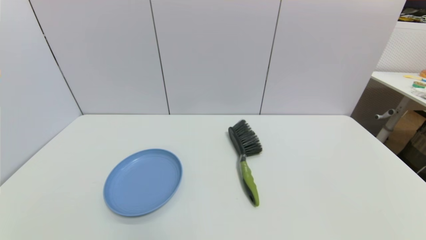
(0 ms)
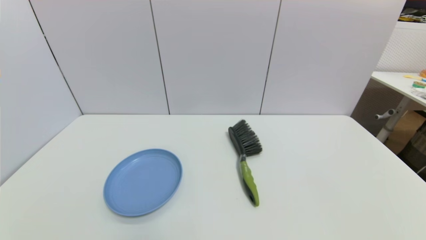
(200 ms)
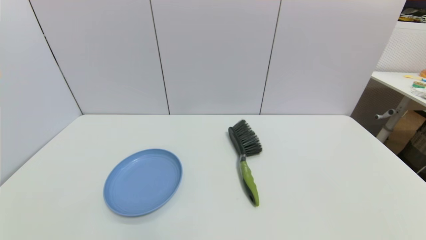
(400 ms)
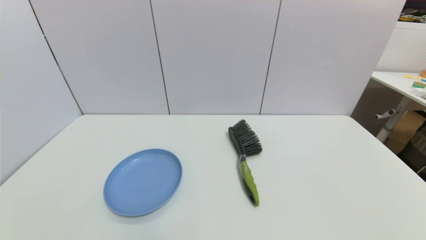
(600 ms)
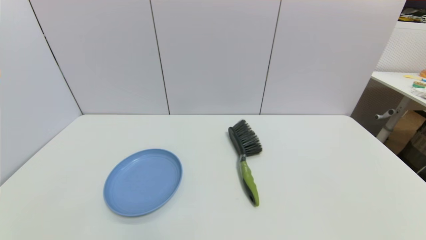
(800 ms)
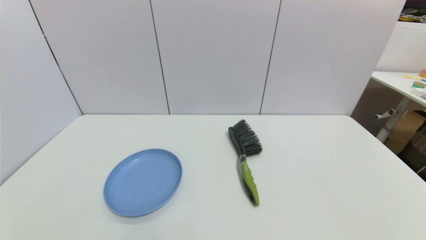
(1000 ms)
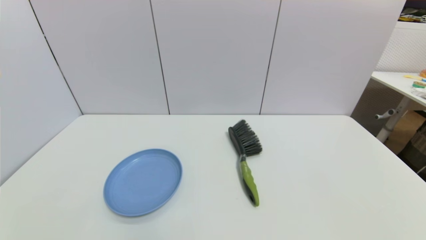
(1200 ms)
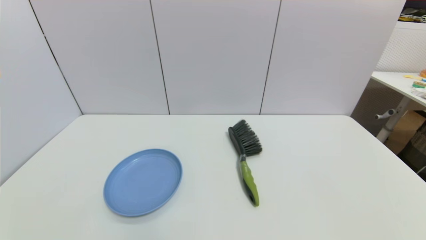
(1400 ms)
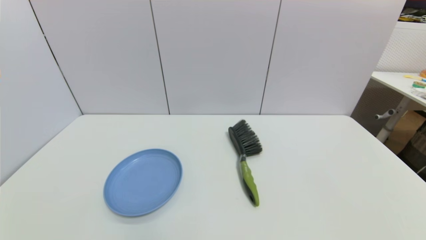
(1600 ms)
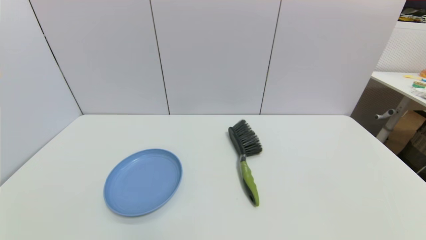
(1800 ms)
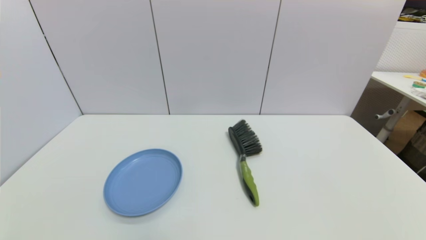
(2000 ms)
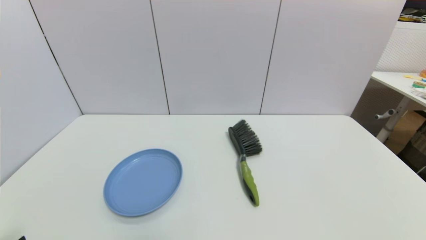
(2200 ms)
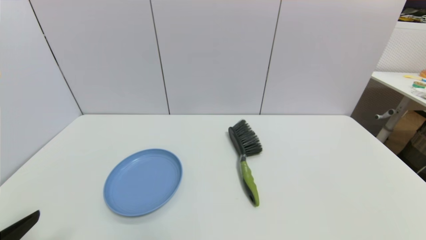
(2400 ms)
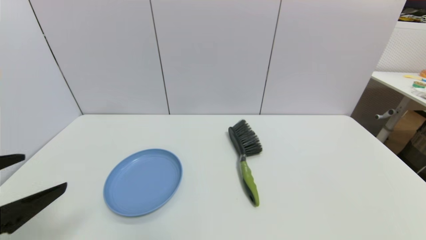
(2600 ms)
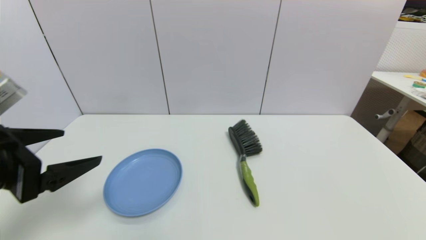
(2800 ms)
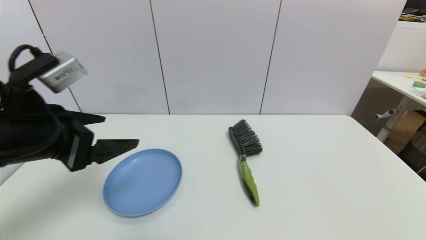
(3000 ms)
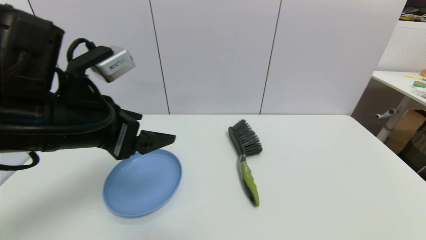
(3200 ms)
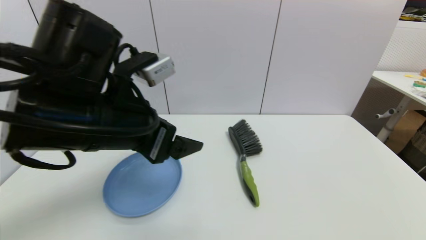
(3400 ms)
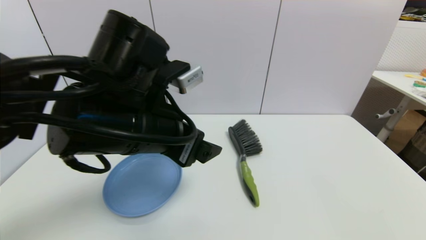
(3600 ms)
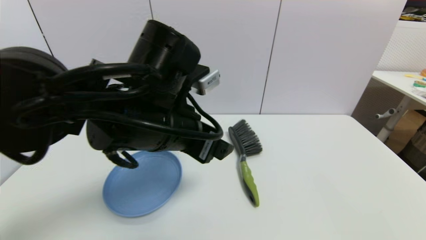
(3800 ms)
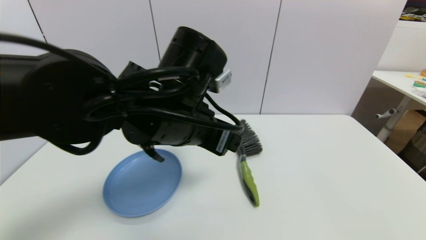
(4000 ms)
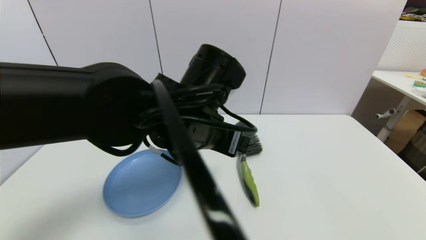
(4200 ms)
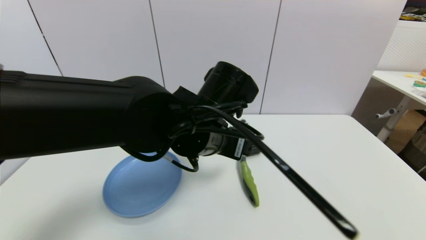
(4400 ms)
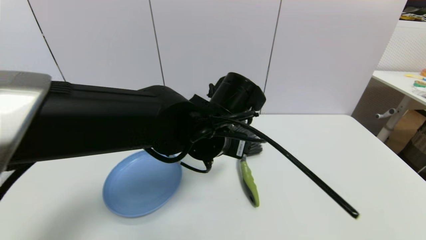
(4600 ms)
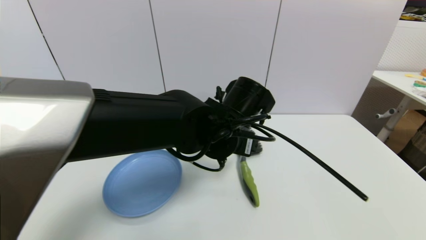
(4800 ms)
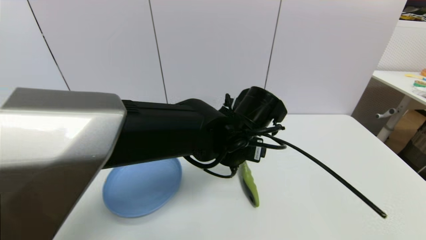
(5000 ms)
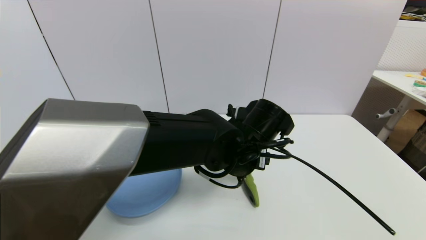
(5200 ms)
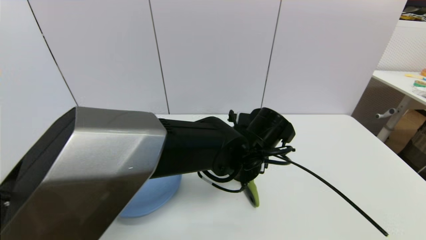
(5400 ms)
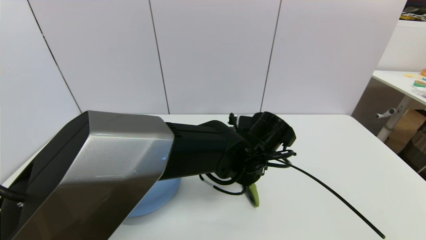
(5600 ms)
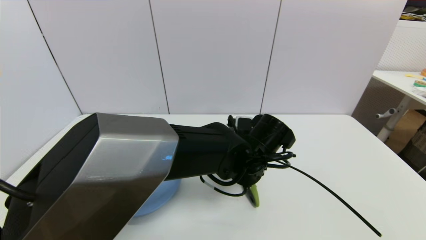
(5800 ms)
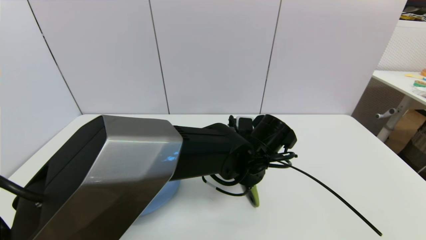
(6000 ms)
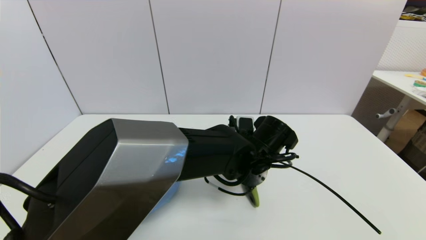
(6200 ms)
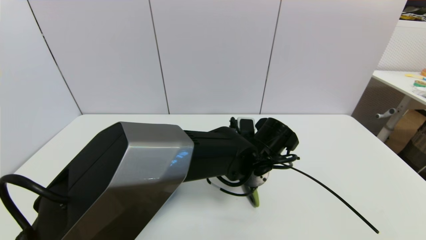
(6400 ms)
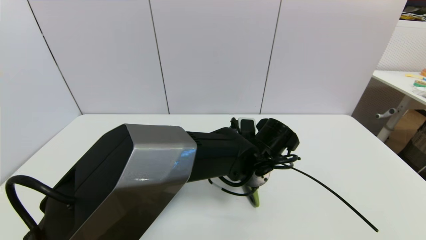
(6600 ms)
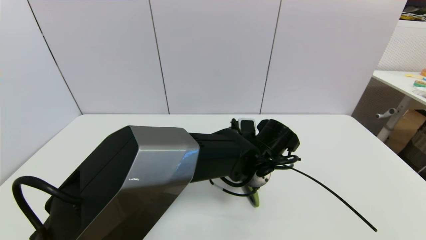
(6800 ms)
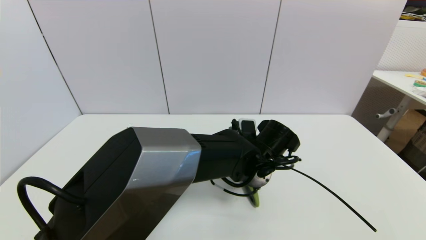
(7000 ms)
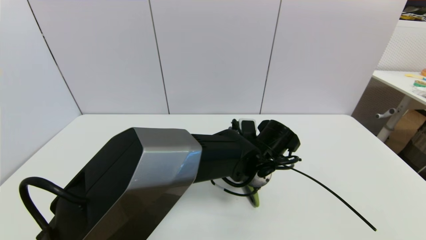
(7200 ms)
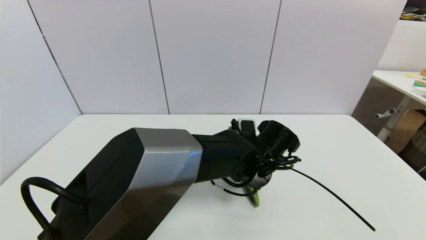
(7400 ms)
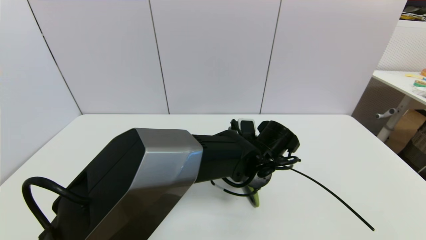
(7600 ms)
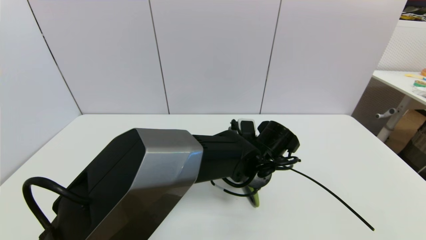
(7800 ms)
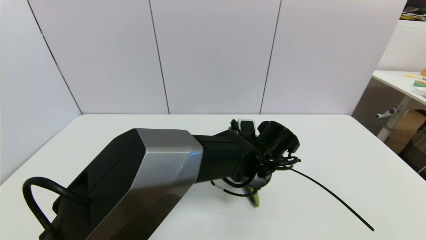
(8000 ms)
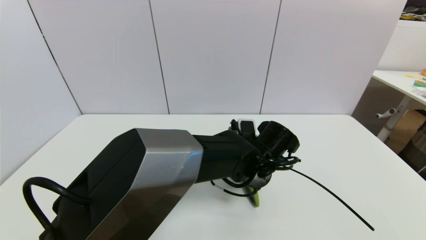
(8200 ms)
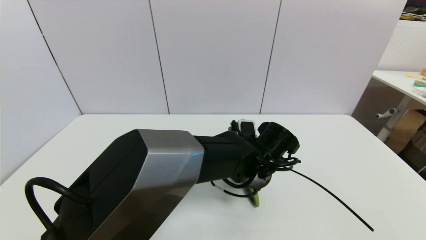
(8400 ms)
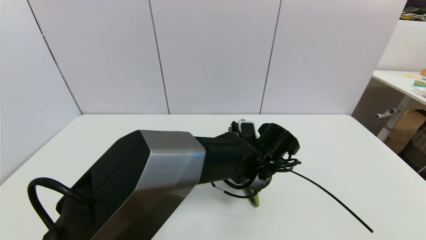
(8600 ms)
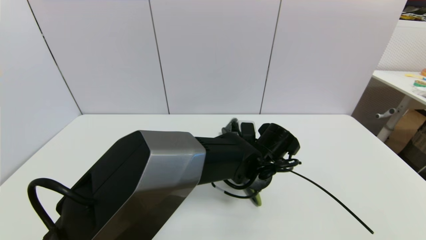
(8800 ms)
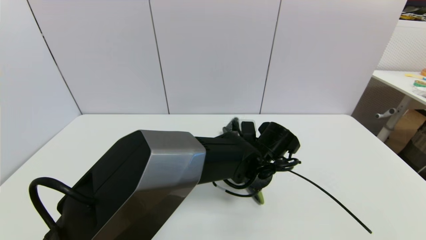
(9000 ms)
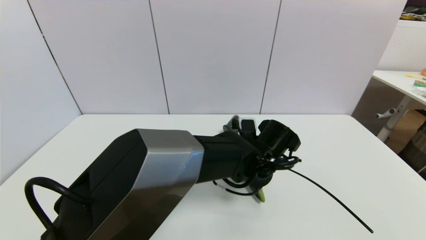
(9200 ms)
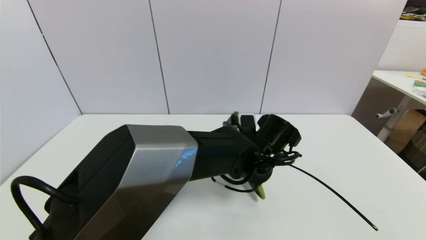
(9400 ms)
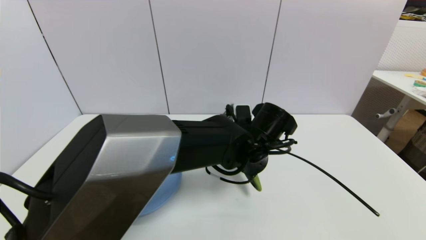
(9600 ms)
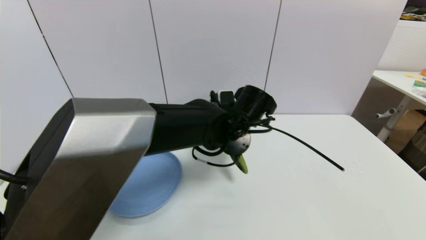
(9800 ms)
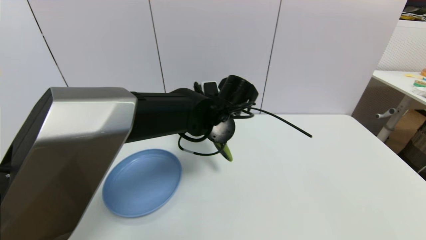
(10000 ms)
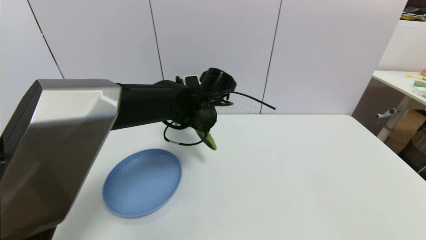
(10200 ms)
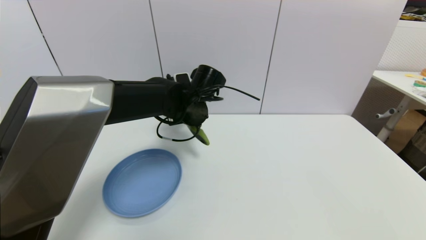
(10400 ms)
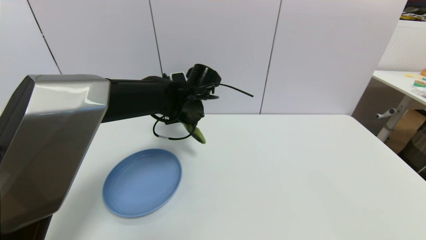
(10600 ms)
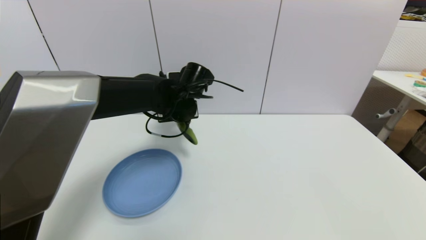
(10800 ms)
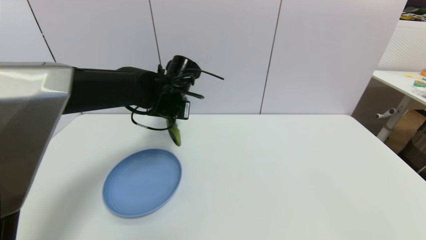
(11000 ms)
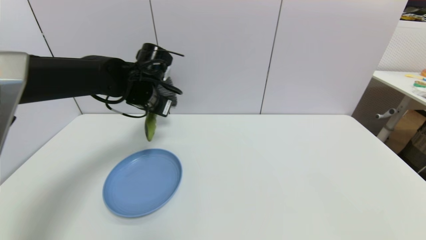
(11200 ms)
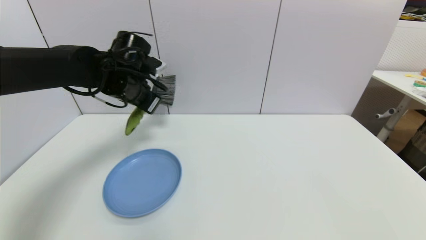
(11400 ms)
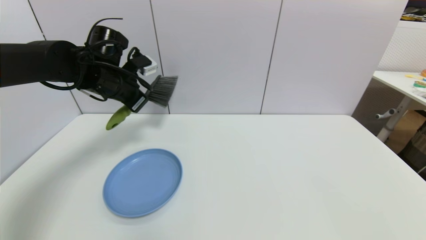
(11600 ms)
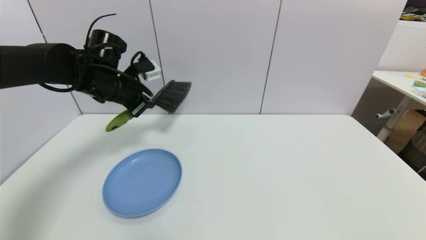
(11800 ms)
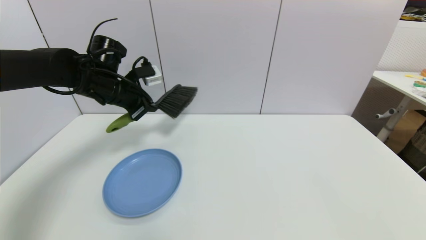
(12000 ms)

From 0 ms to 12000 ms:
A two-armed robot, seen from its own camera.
Task of the whole recording: put the brush in the designated position.
Step, from 2400 ms to 9400 ms: Grasp the brush with left gripper.
From 0 ms to 1600 ms: Neither gripper changes place.
From 1600 ms to 3000 ms: The left gripper travels upward, forward and to the right by some 30 cm.
From 3000 ms to 4400 ms: The left gripper travels to the right by roughly 20 cm.
From 4400 ms to 6000 ms: The left gripper travels downward and to the right by approximately 10 cm.
From 6000 ms to 7600 ms: There are only small adjustments of the grippers.
From 7600 ms to 9000 ms: The left gripper closes its fingers.
From 9000 ms to 10400 ms: The left gripper shifts some 15 cm to the left, upward and forward.
From 10400 ms to 12000 ms: The left gripper travels to the left by approximately 20 cm.

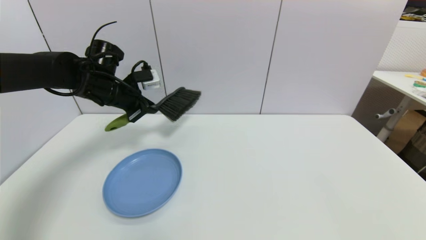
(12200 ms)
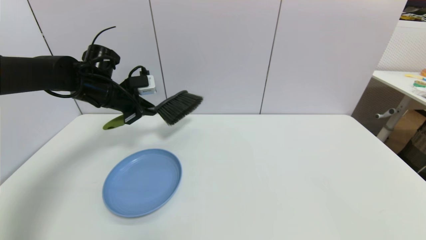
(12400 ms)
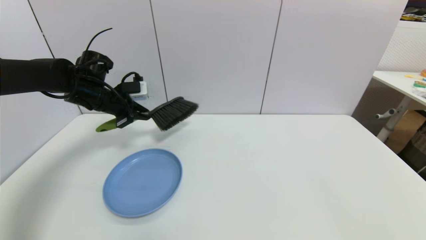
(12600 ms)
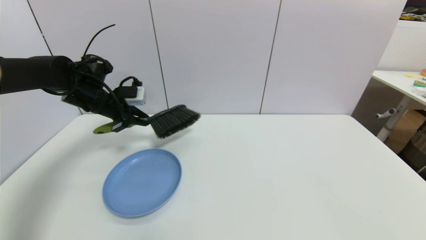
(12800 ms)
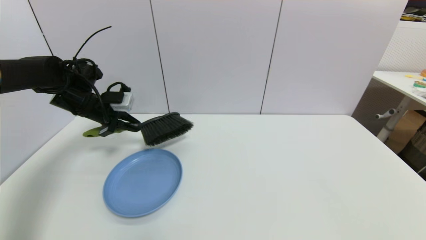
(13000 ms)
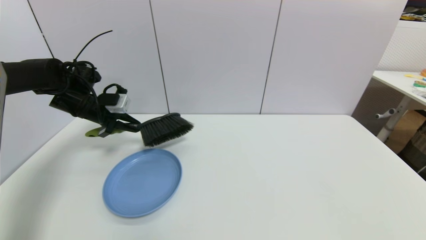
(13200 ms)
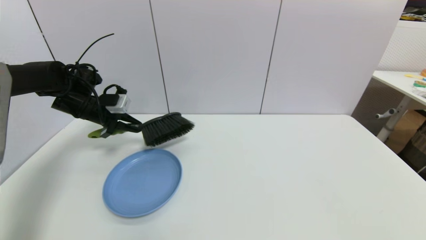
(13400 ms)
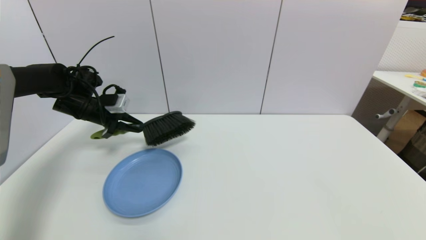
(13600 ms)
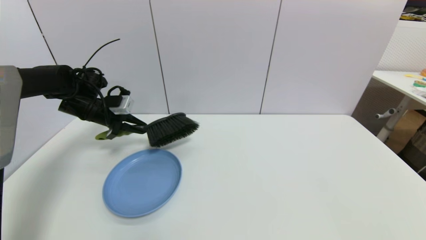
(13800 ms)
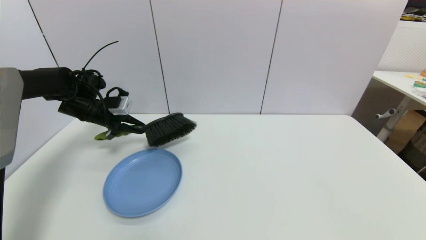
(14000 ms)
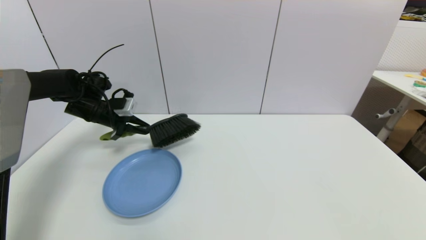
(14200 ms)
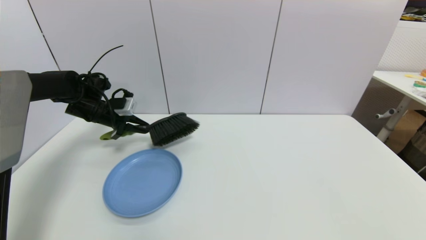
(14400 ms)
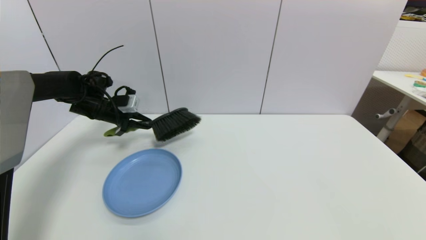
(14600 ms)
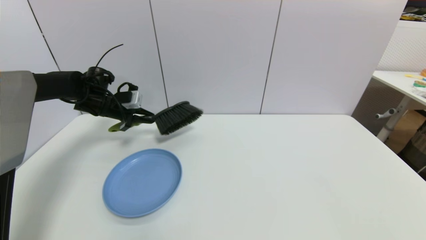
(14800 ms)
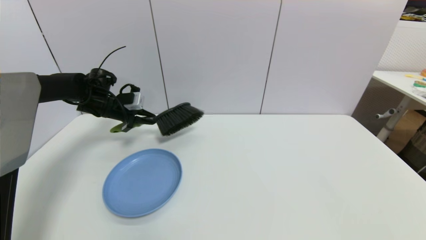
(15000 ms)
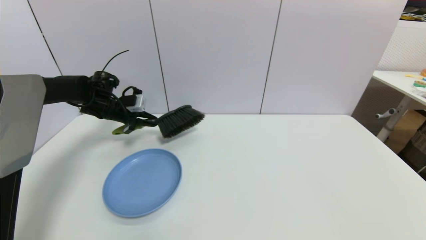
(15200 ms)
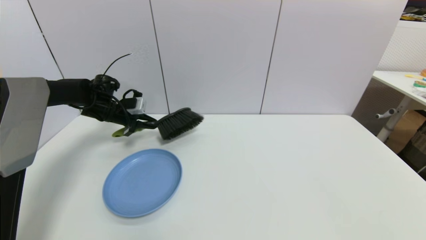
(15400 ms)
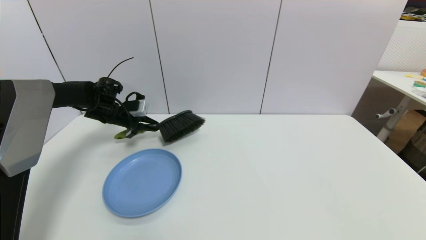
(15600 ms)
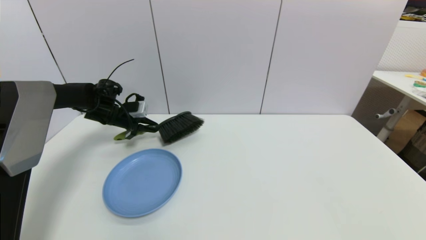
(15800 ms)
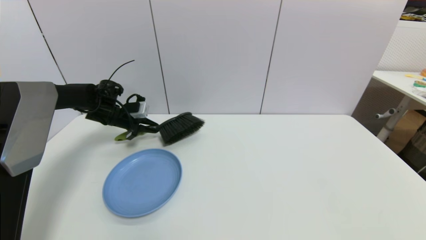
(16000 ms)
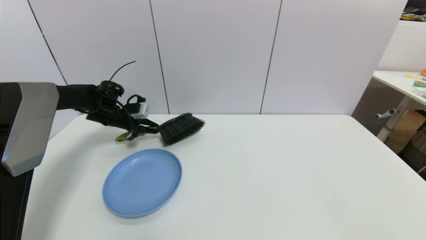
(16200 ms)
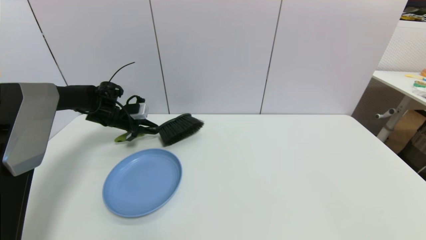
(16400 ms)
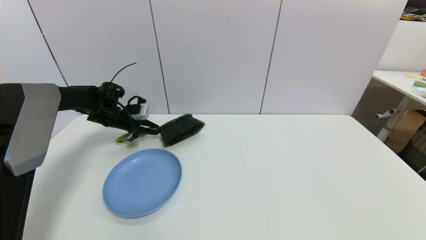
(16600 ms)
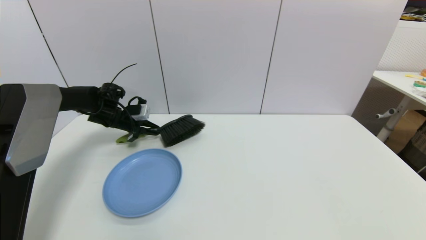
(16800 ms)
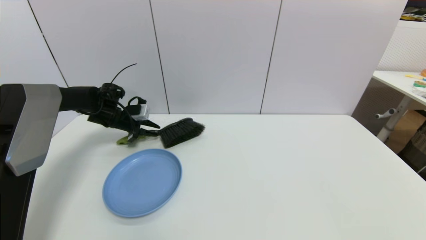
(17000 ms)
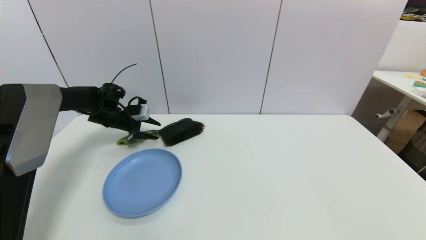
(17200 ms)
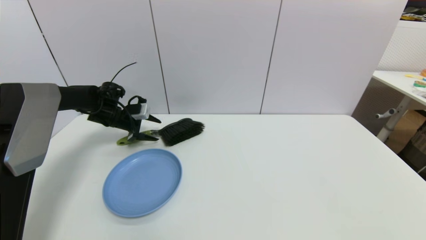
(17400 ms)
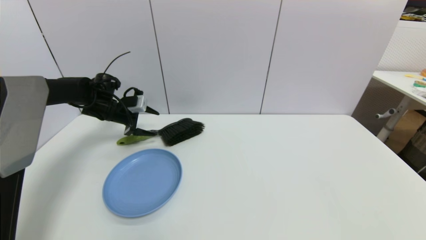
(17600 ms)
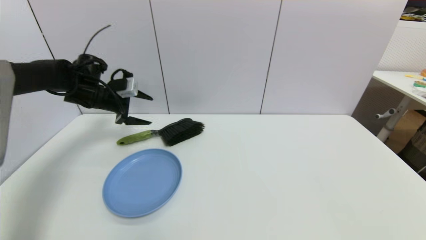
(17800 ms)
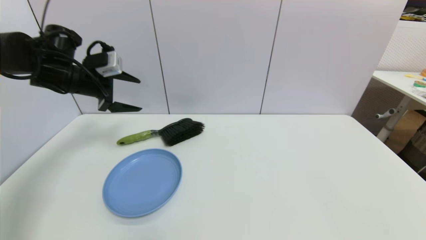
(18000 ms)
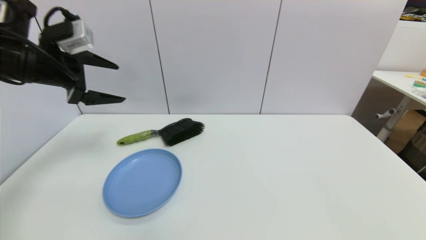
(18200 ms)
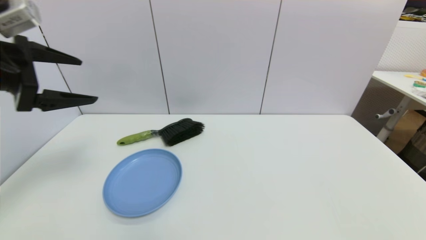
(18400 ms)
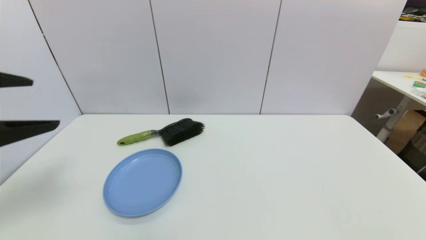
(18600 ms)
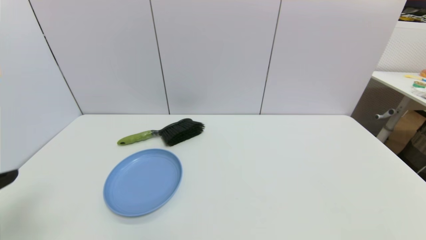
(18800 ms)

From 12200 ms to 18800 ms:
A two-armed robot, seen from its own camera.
Task of the whole recording: put the brush in the designated position.
Step, from 12200 ms to 17600 ms: Place the brush on the table with left gripper.
From 12200 ms to 13800 ms: The left gripper goes about 10 cm to the left and downward.
From 13800 ms to 15400 ms: The left gripper changes place by roughly 5 cm.
From 15400 ms to 17200 ms: The left gripper opens up.
From 17200 ms to 18800 ms: The left gripper moves backward and upward, some 40 cm, and opens its fingers.
